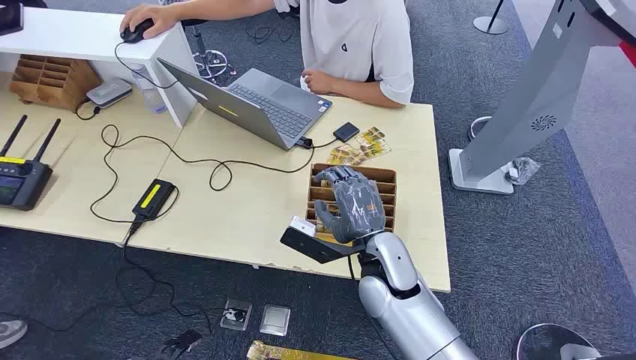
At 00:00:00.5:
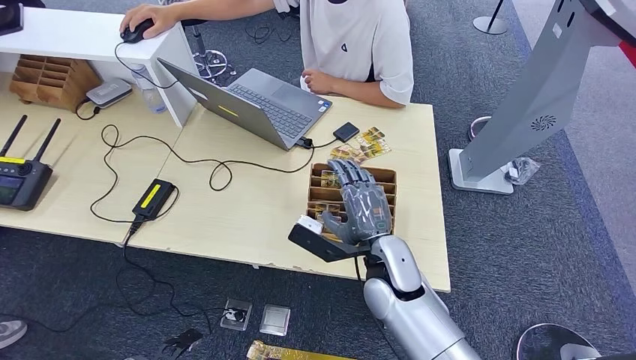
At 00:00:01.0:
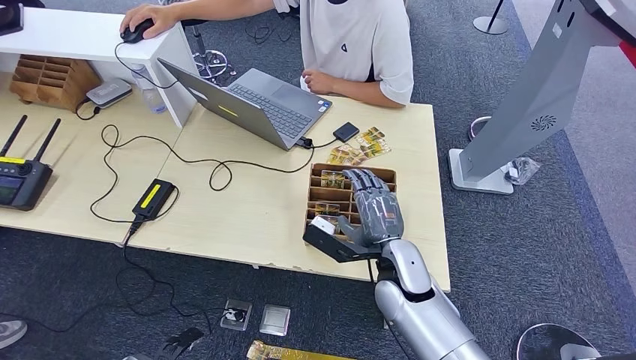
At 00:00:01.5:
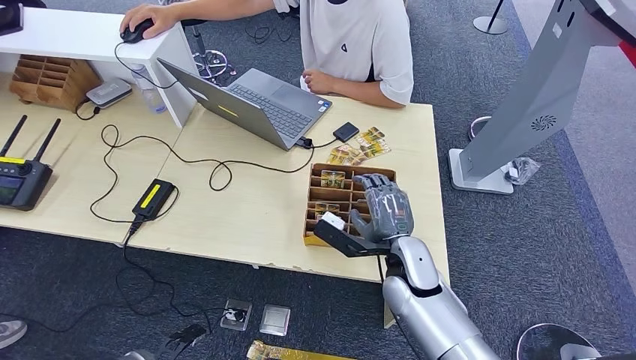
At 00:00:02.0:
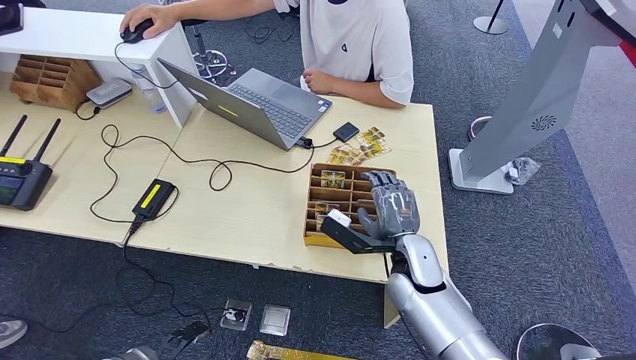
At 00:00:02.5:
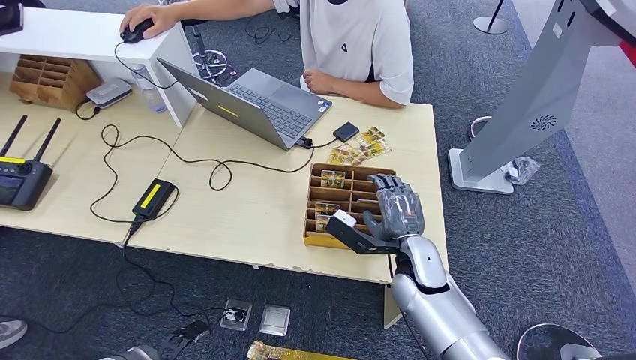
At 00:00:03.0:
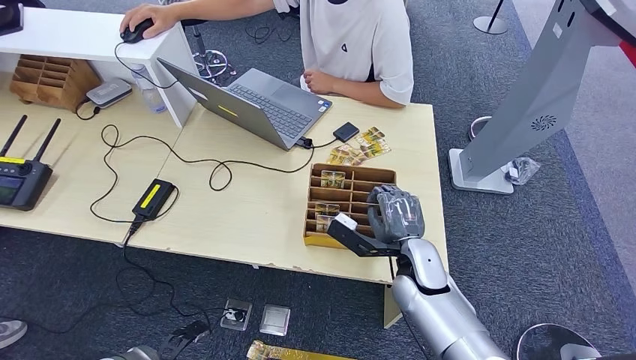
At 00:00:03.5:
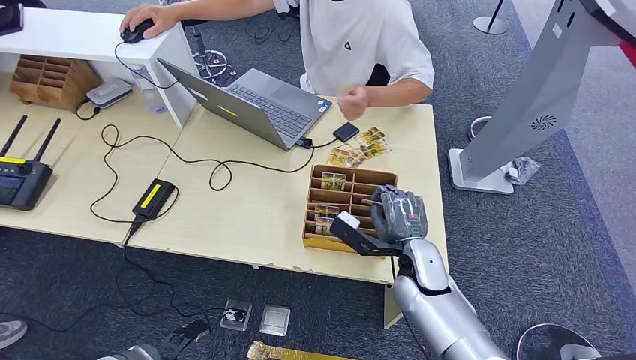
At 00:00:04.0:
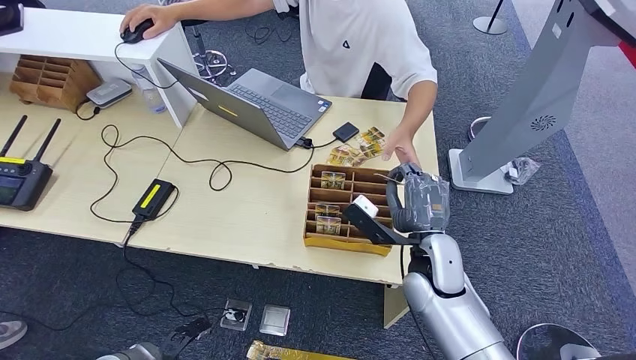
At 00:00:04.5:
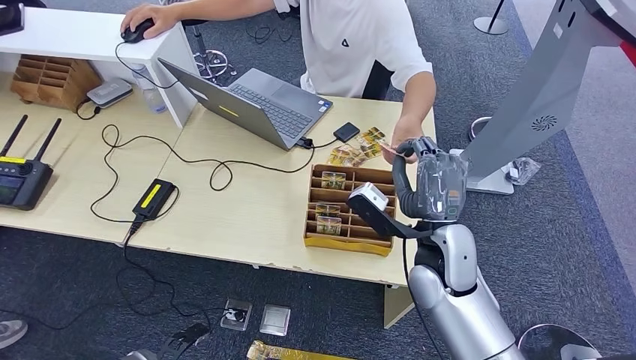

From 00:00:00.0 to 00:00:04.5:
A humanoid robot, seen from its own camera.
Task of the whole recording: Pick up the card and hand it to the target person.
Step, from 00:00:00.0 to 00:00:03.5: Pick up the key card from the card box.
Step, from 00:00:04.0 to 00:00:04.5: Hand the key card to the target.
From 00:00:02.0 to 00:00:04.5: The right hand travels upward by approximately 10 cm.
